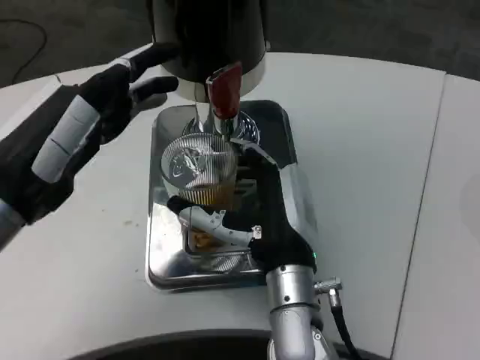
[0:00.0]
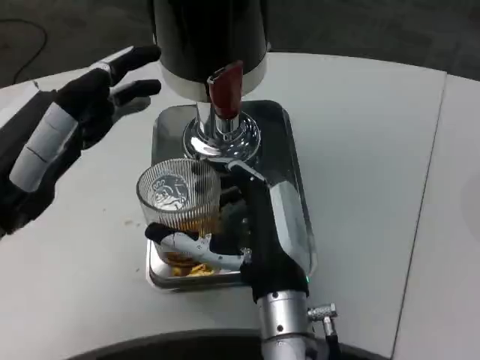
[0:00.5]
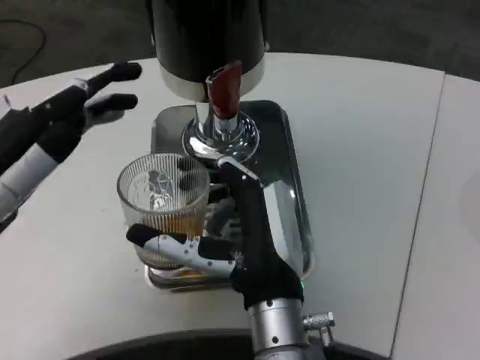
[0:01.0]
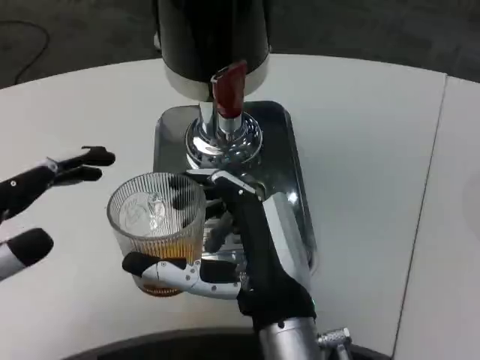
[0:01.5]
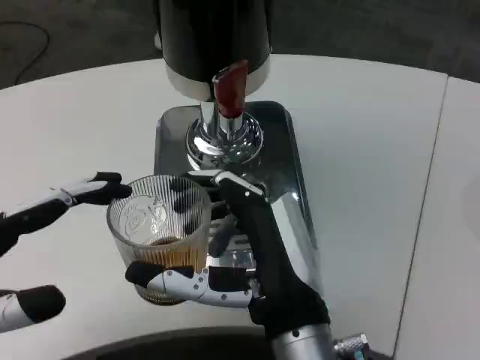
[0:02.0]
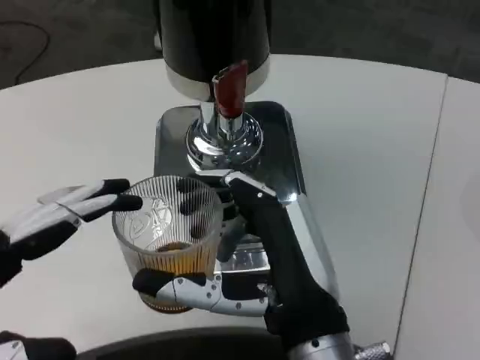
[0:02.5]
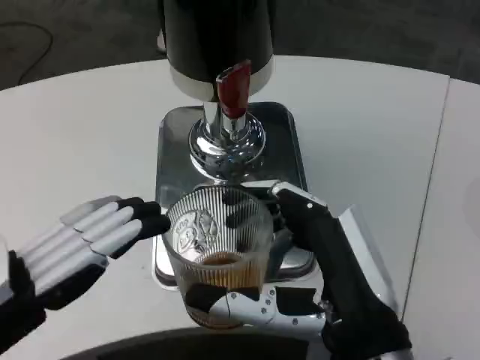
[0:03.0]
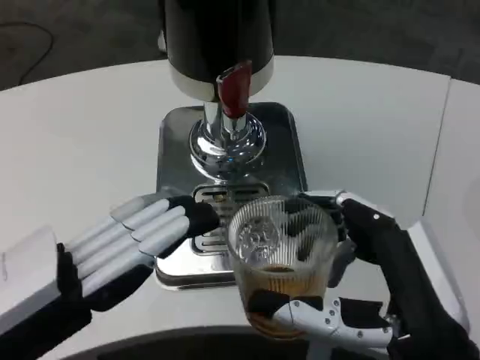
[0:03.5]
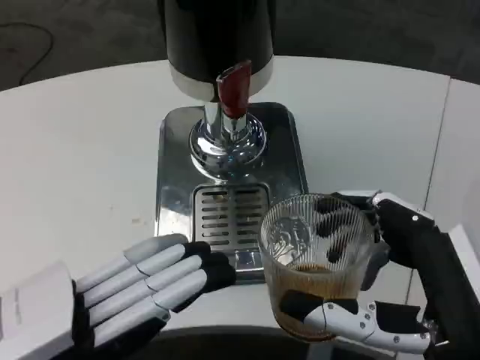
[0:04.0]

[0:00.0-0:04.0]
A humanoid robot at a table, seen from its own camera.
Task of the whole recording: Grasp the cup under the faucet to collect the drink, then remove the cup.
0:00.0 to 0:02.0: The right hand is displaced backward by approximately 10 cm, while the left hand travels backward and to the left by roughly 10 cm.
0:02.0 to 0:04.0: The left hand shifts by approximately 5 cm. The right hand goes about 15 cm to the right and backward.
